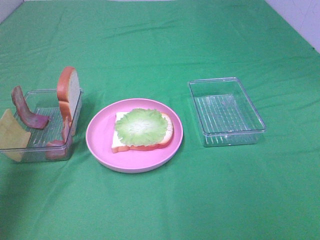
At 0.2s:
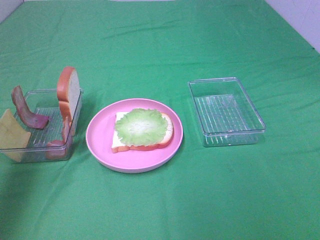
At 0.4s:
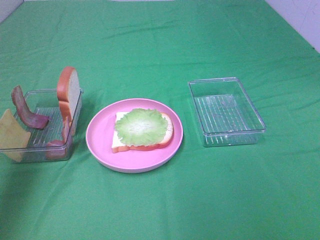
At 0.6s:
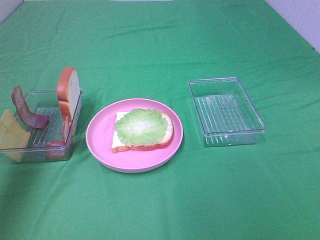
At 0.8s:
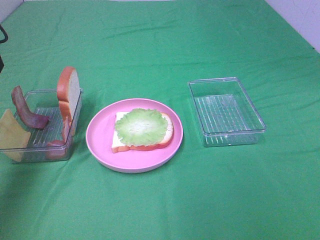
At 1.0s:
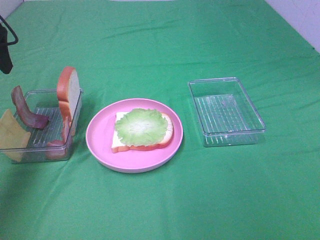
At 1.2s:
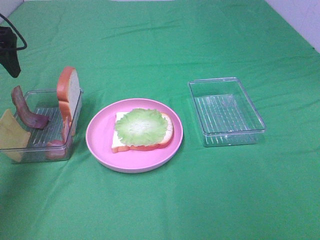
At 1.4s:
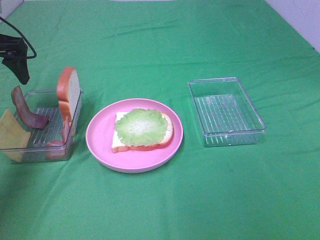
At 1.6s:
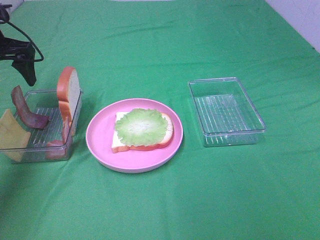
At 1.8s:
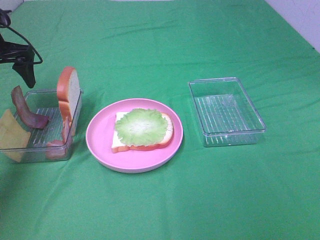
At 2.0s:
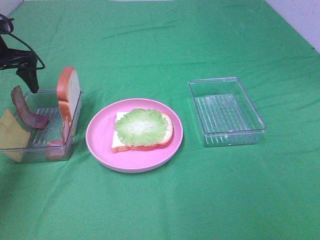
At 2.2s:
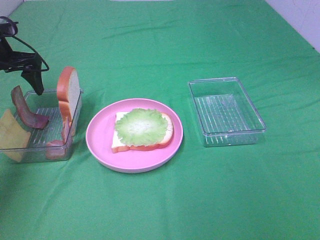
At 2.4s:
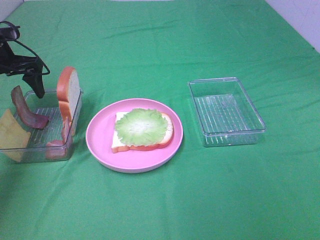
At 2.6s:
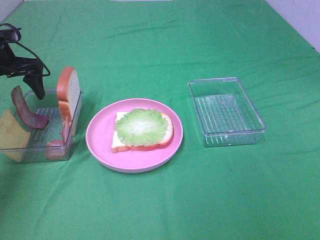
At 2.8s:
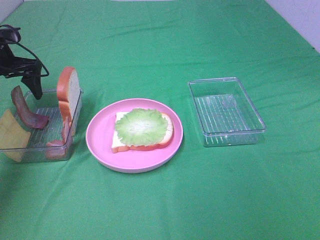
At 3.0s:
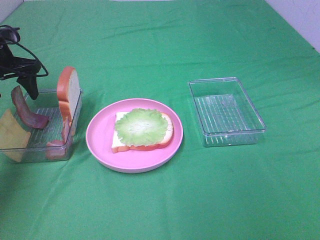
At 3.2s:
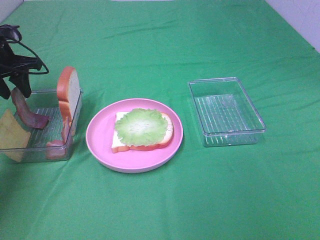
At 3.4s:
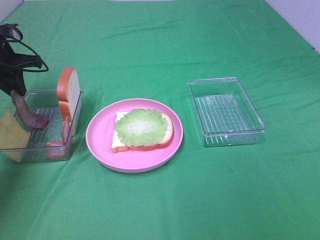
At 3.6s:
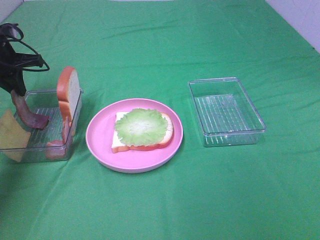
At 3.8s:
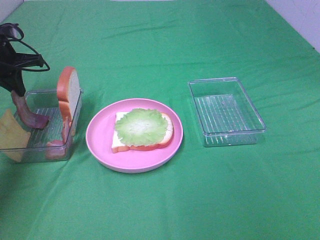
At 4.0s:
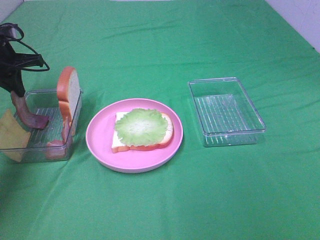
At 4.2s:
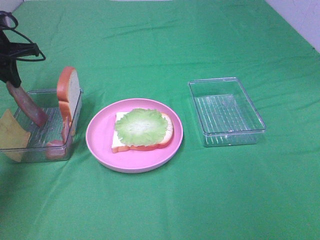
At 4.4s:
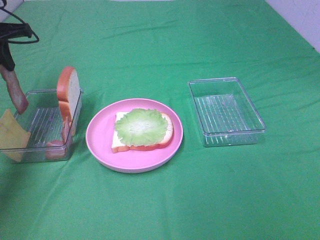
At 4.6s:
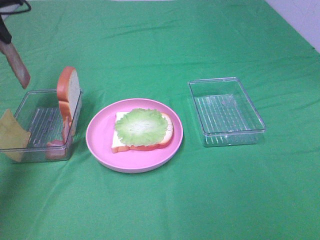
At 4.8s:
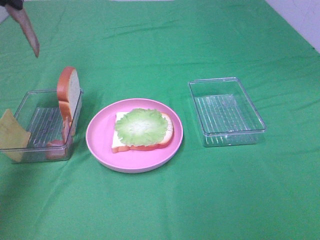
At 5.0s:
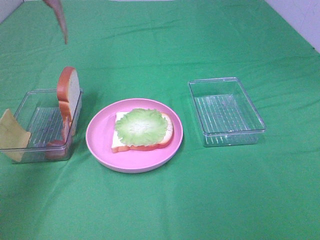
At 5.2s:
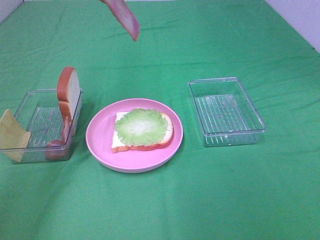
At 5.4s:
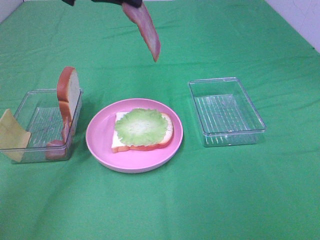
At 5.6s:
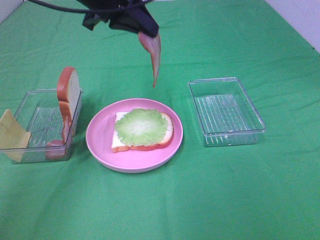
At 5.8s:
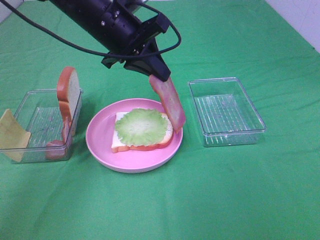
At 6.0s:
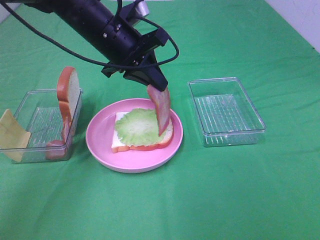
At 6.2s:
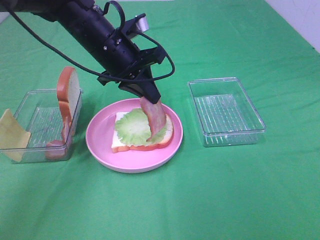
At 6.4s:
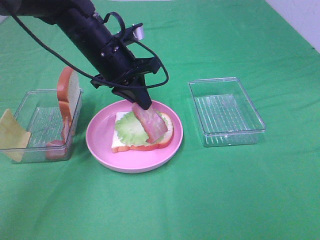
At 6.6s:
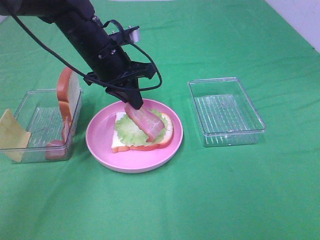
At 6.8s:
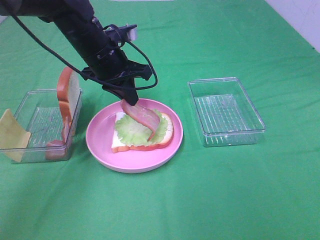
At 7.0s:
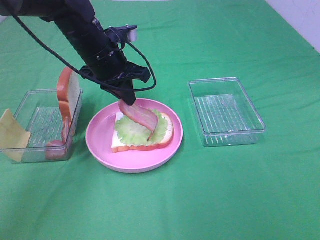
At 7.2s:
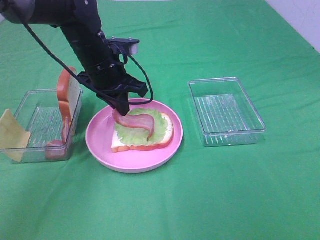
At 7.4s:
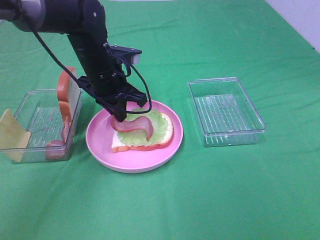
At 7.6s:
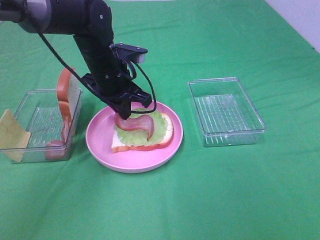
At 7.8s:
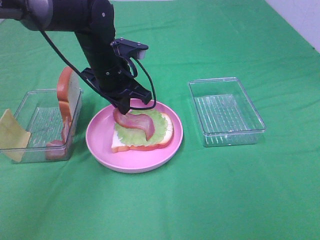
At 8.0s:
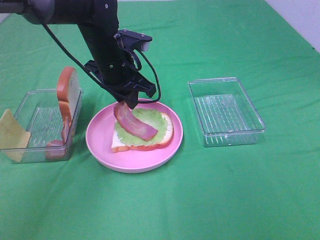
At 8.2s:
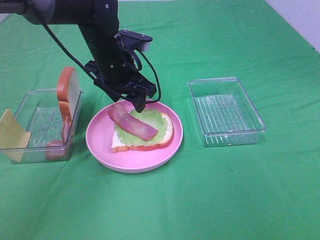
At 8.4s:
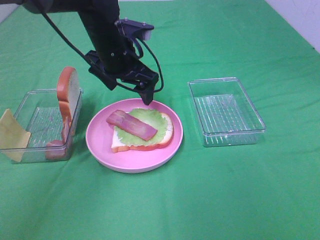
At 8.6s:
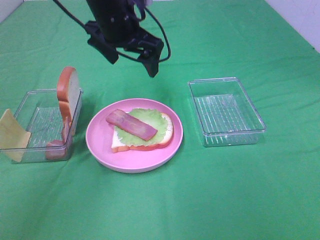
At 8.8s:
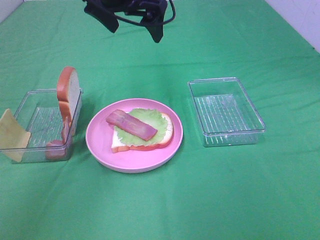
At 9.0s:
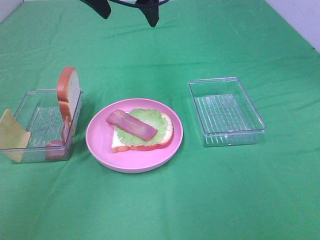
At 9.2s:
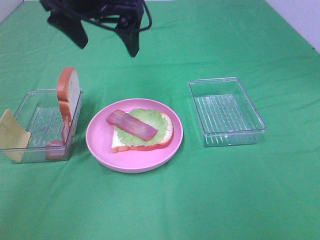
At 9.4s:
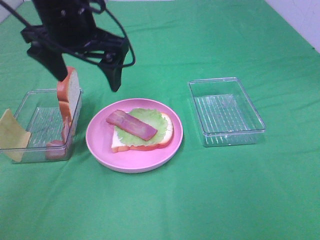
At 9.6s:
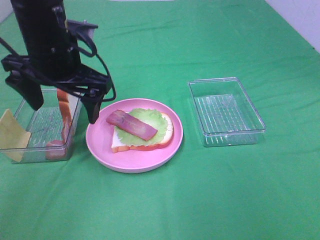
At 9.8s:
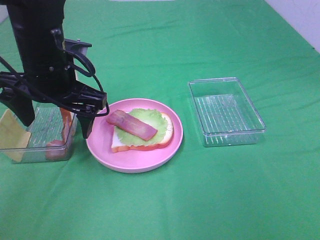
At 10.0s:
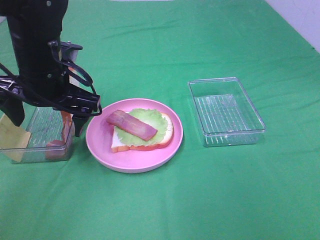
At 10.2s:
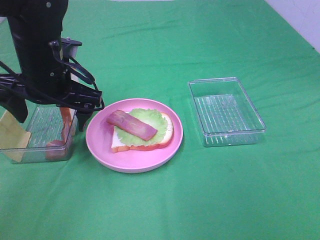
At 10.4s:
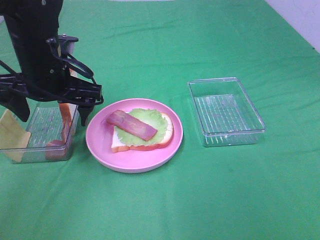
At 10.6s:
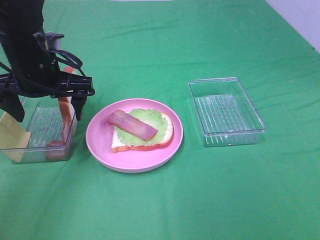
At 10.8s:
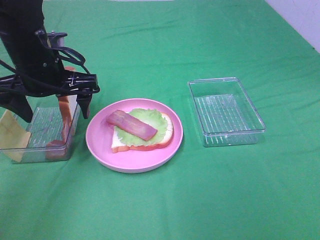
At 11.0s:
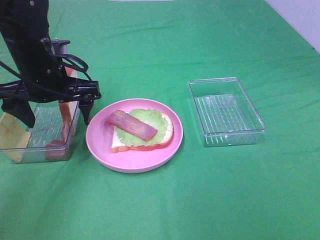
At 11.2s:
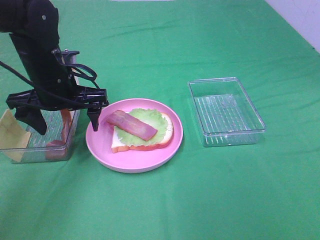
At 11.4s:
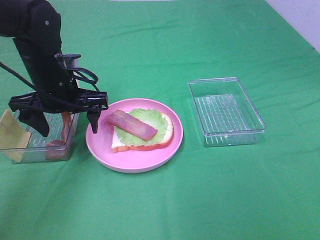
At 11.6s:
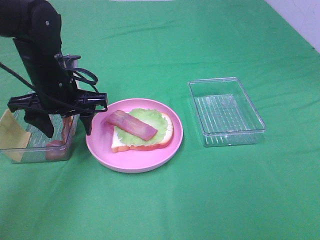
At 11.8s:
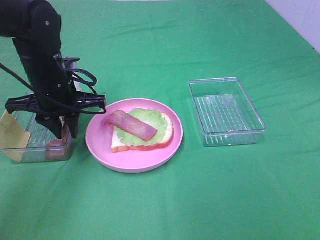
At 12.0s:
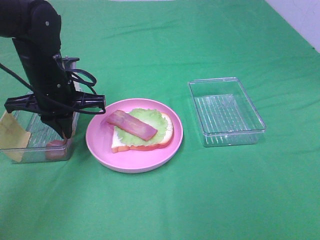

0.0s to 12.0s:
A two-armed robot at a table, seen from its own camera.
Task of the whole recording: Make sandwiches.
Step, 0.0s to 3.8s: Left hand:grab the bacon.
Step, 4.0s to 8.2s: Left hand:place bacon on lettuce slice.
0.0s to 1.6s: The left gripper is displaced forward and downward by approximately 25 cm.
1.6s to 3.0s: The left gripper goes roughly 5 cm downward.
3.0s to 4.4s: The left gripper heads upward, covering roughly 5 cm, and closes up.
4.4s to 6.0s: The left gripper heads to the right, covering about 25 cm.
6.0s to 7.6s: The left gripper heads downward, covering some 5 cm.
7.6s to 9.0s: The left gripper is displaced upward by roughly 20 cm, and opens.
9.0s to 10.4s: The left gripper travels downward, to the left and backward by about 15 cm.
10.4s to 12.0s: The left gripper closes its fingers.

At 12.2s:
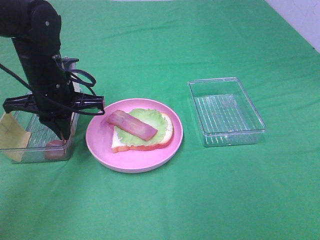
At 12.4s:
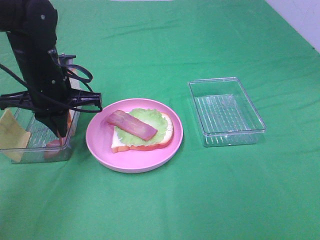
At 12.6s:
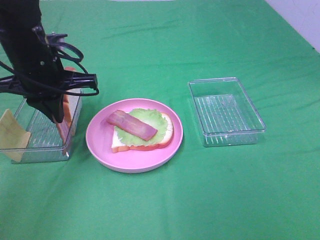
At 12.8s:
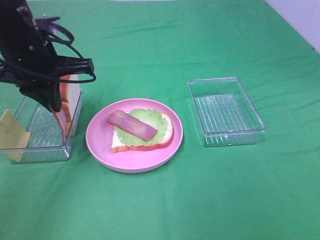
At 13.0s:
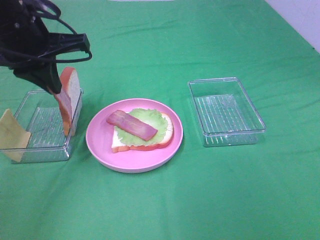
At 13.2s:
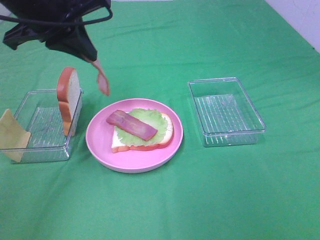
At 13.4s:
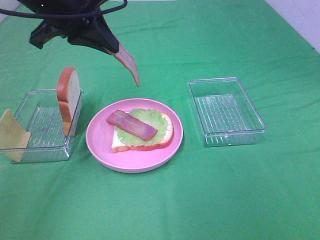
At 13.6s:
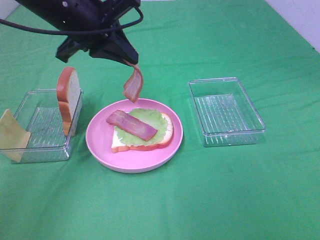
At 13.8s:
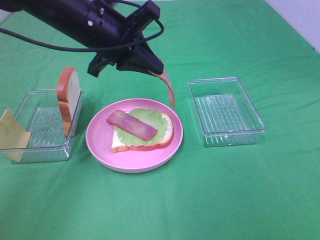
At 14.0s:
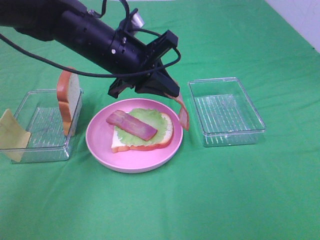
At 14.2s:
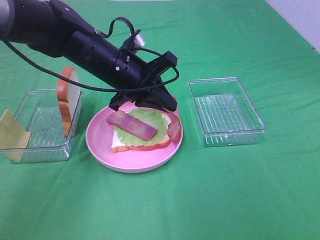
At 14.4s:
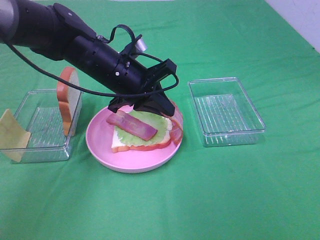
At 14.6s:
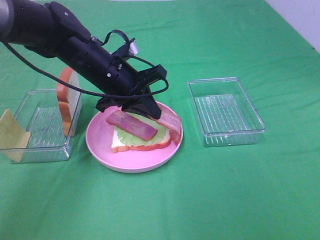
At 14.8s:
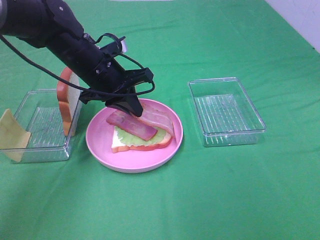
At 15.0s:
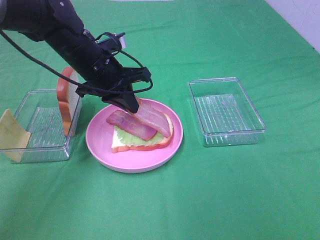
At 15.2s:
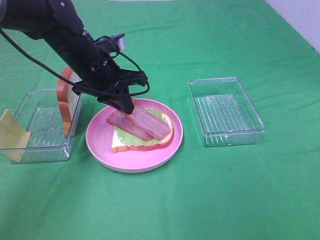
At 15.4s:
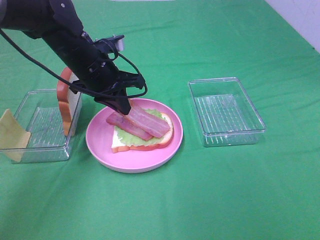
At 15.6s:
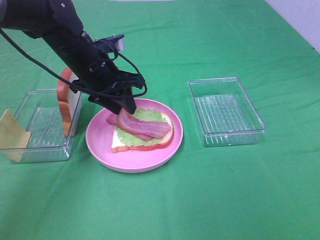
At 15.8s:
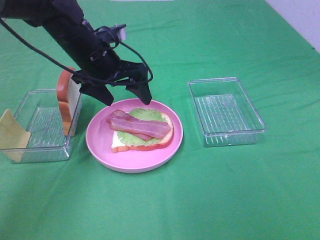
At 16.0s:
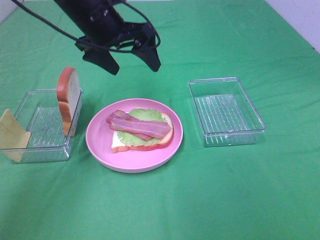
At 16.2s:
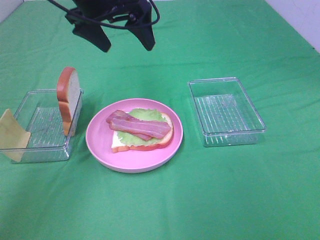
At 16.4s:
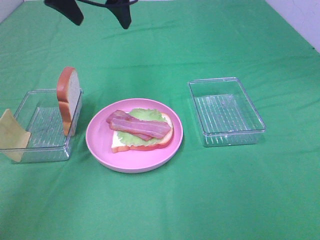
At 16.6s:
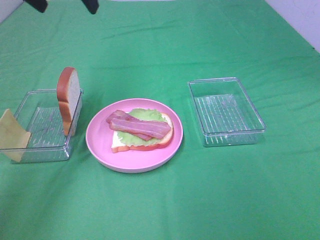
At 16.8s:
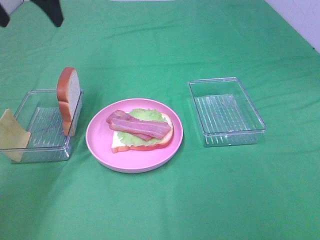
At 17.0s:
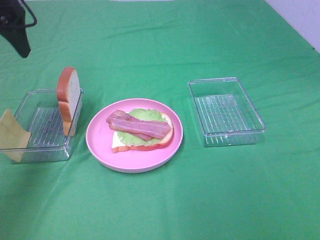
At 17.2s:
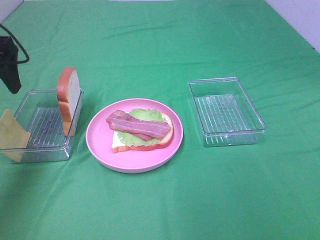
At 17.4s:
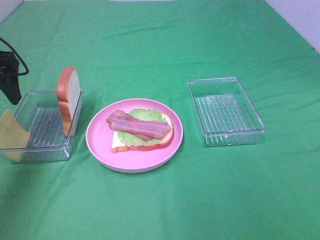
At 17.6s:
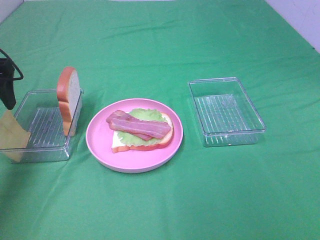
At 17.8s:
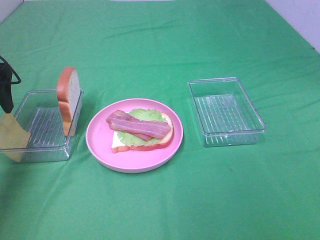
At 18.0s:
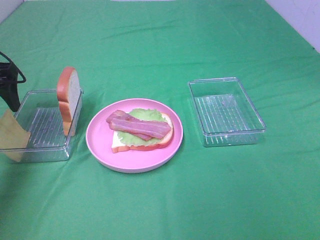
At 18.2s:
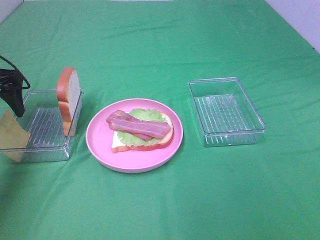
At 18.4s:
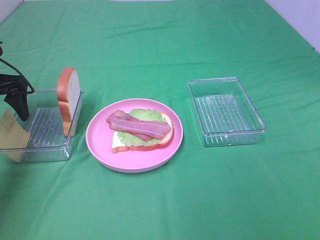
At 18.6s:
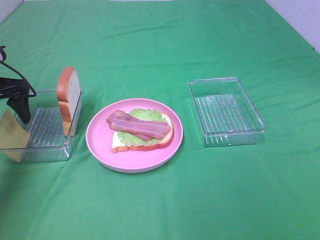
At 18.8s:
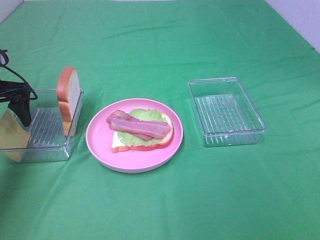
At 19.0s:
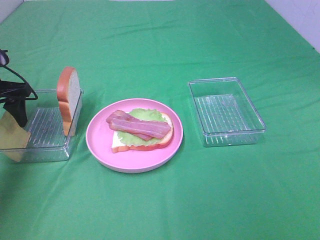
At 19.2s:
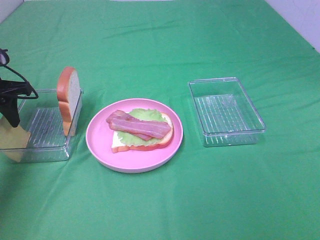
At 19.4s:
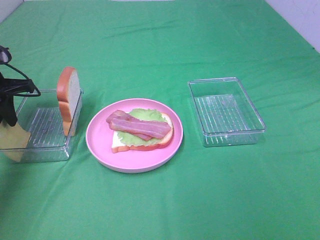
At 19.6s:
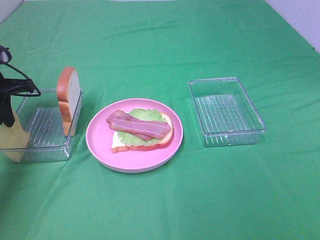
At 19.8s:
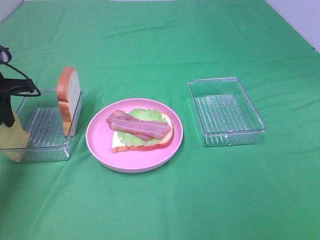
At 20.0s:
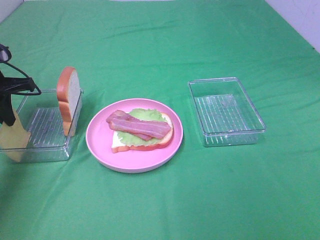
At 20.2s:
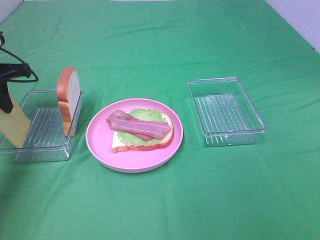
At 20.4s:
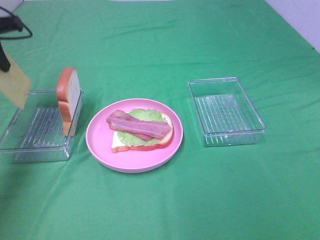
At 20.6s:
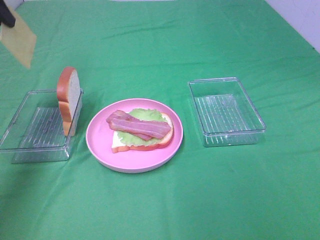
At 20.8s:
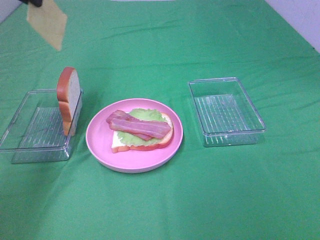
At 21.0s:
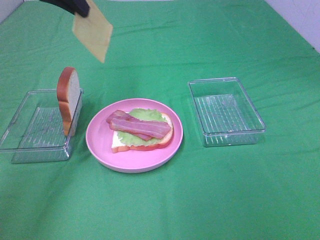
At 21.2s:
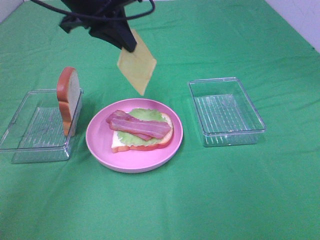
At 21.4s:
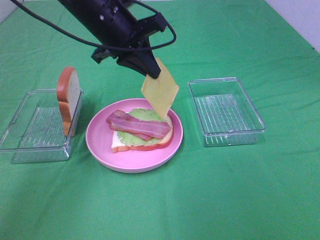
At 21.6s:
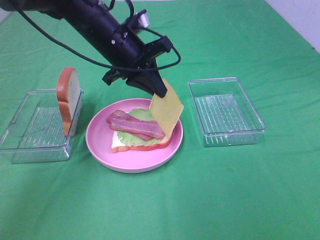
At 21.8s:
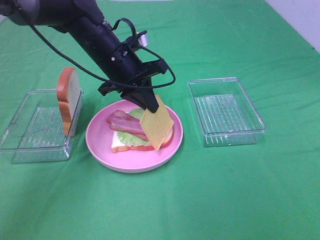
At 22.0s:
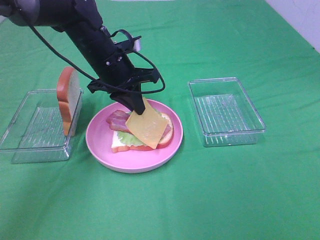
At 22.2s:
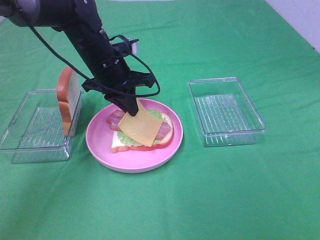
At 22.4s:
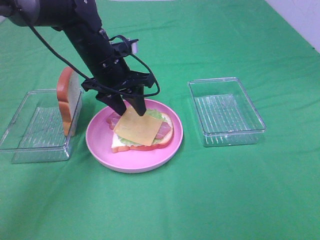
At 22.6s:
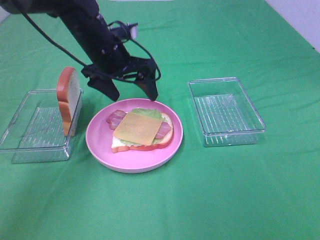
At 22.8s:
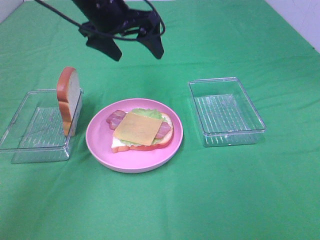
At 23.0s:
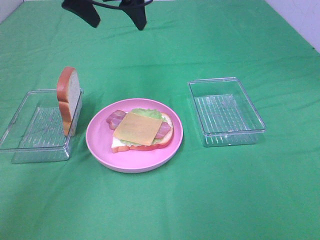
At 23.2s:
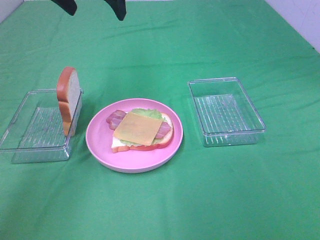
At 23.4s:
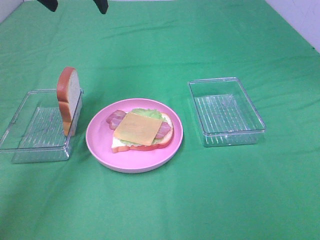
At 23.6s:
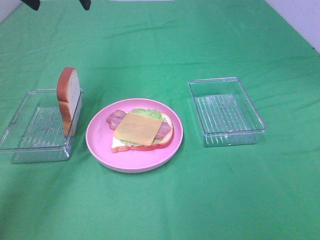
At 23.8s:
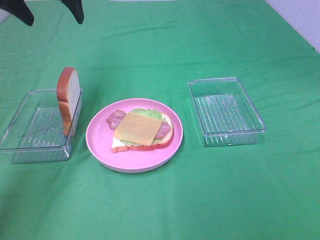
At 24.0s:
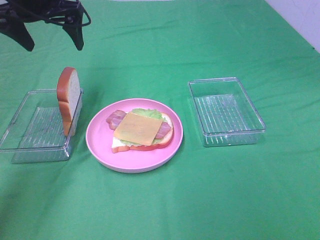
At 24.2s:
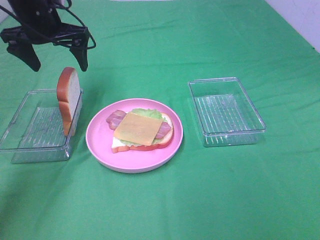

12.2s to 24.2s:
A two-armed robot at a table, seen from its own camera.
Task of the whole recording: Make sandwiches.
Step, 12.2s to 15.8s: Left hand:place bacon on bacon.
Step, 16.0s to 19.6s: Left hand:grab the cheese slice.
Step, 19.8s to 22.4s: Left hand:place the cheese slice on top of the bacon.
12.2s to 13.8s: The left gripper shifts about 10 cm upward and to the right.
13.8s to 15.2s: The left gripper shifts about 10 cm downward.
15.2s to 16.6s: The left gripper goes some 20 cm upward and to the left, and opens its fingers.
16.6s to 18.2s: The left gripper is displaced downward and to the left by some 20 cm.
18.2s to 19.8s: The left gripper closes.
19.8s to 21.2s: The left gripper travels to the right and upward by approximately 25 cm.
21.2s to 22.6s: The left gripper goes roughly 10 cm downward, and opens.
22.6s to 24.2s: The left gripper shifts approximately 10 cm to the left, and moves some 15 cm upward and comes back.
